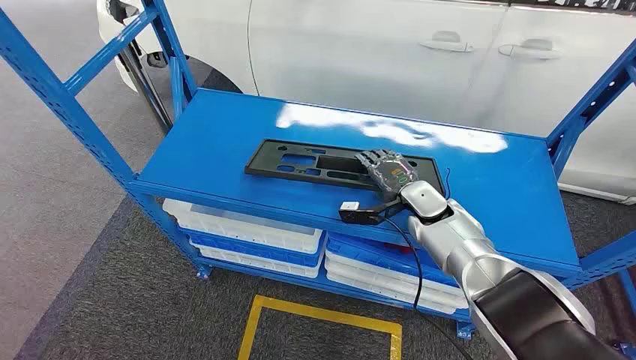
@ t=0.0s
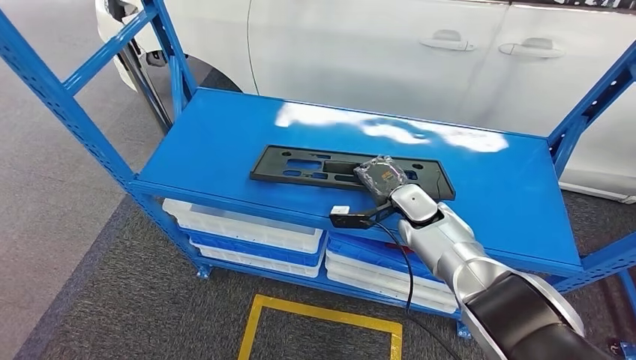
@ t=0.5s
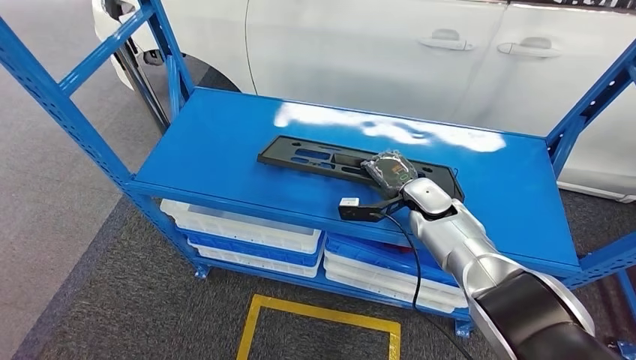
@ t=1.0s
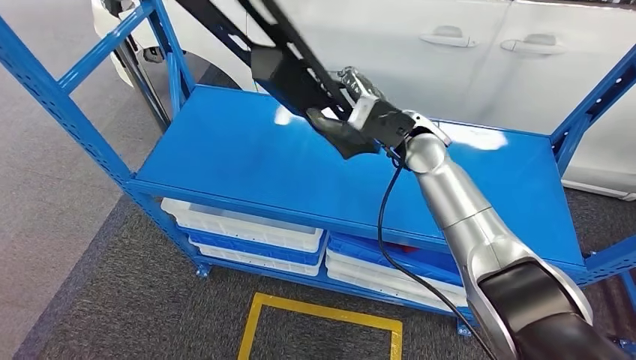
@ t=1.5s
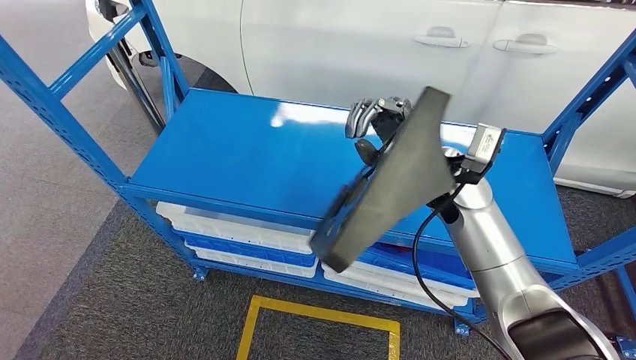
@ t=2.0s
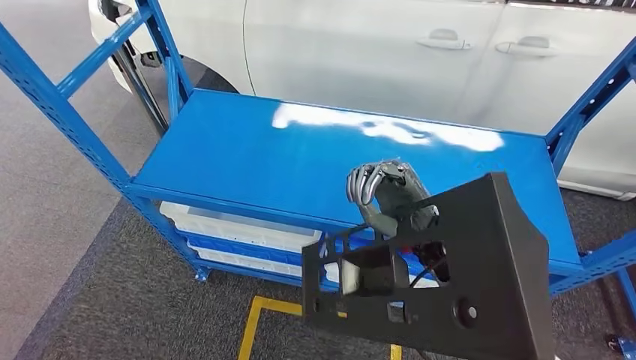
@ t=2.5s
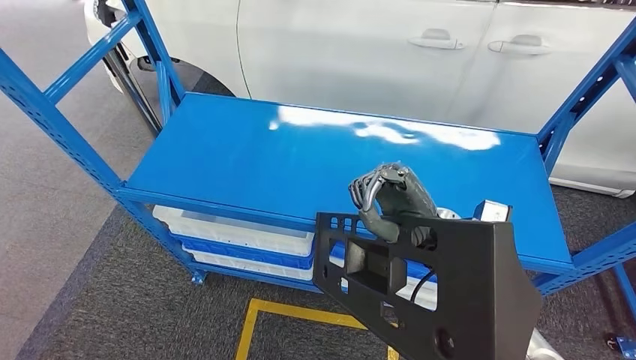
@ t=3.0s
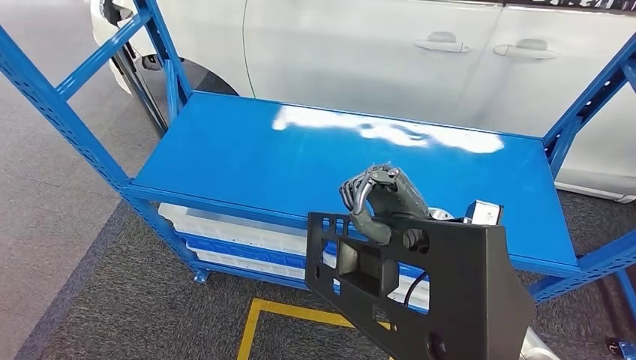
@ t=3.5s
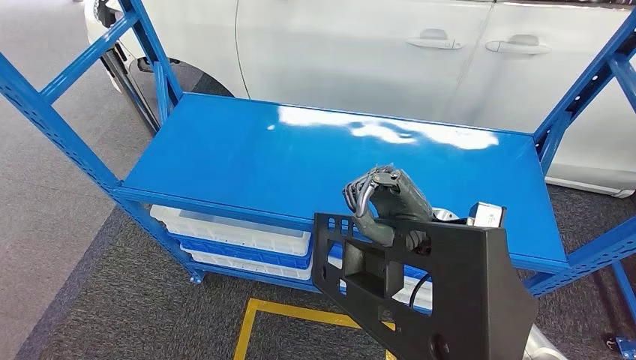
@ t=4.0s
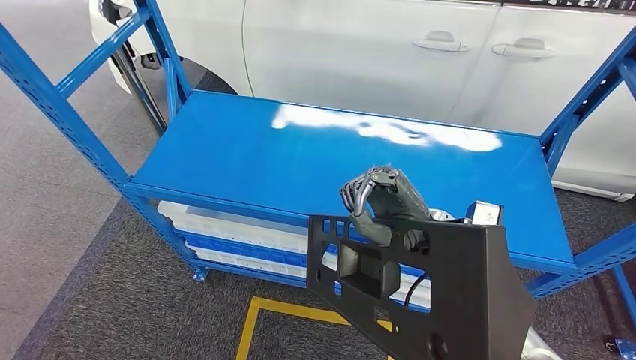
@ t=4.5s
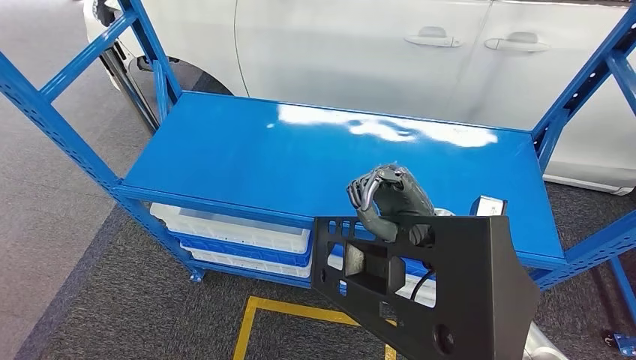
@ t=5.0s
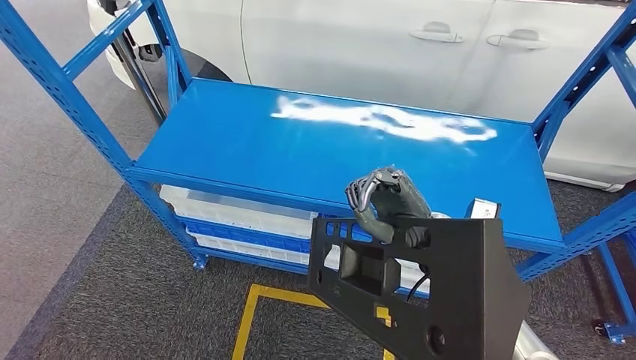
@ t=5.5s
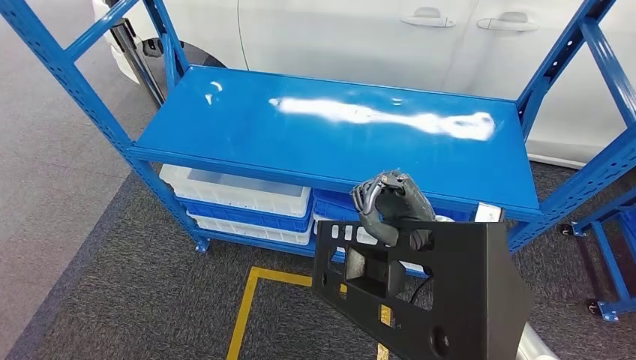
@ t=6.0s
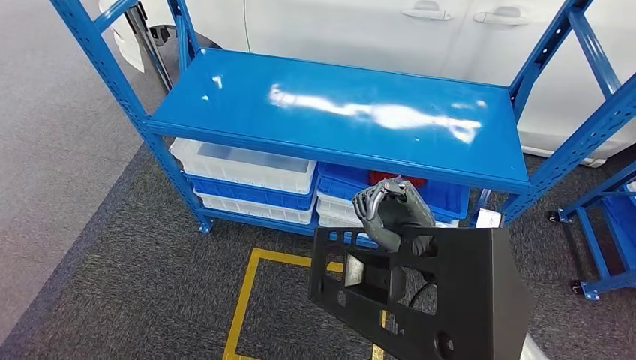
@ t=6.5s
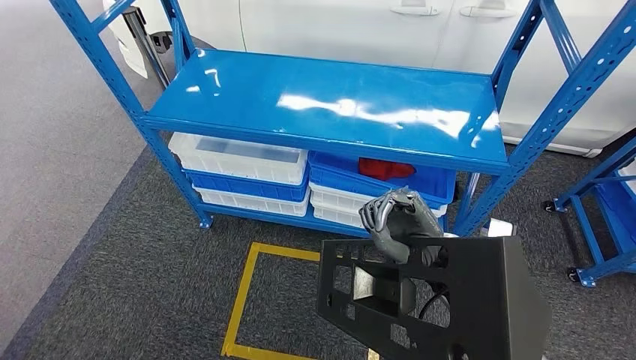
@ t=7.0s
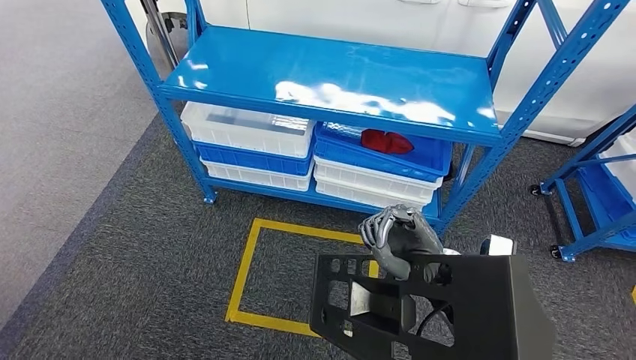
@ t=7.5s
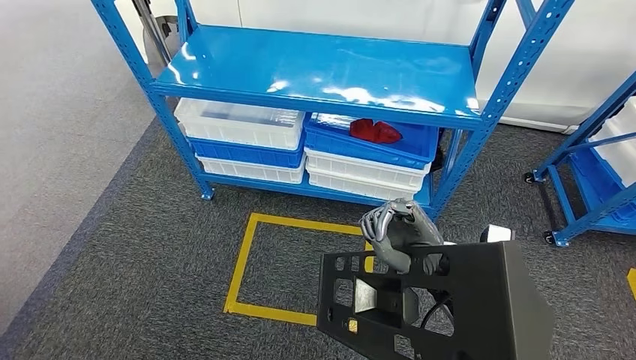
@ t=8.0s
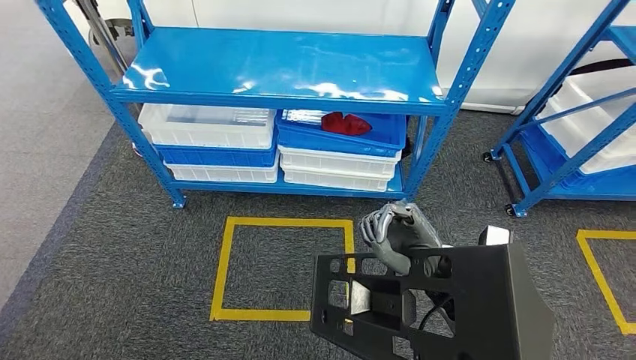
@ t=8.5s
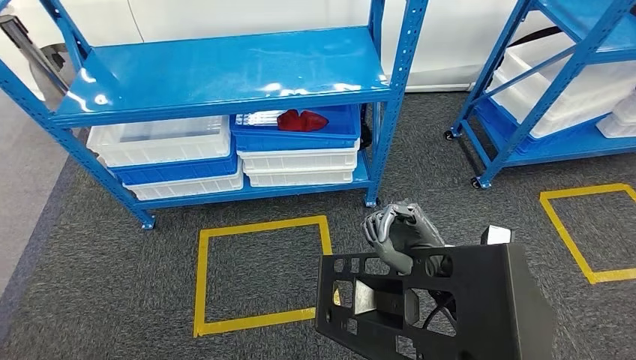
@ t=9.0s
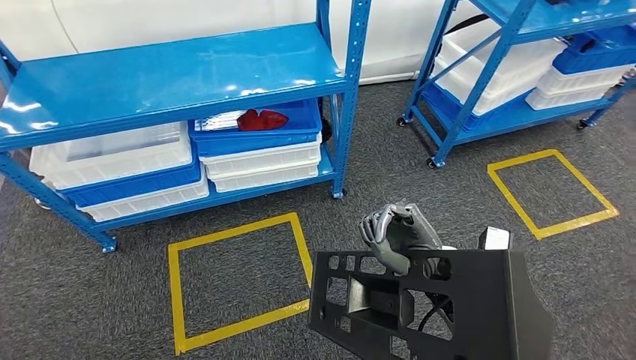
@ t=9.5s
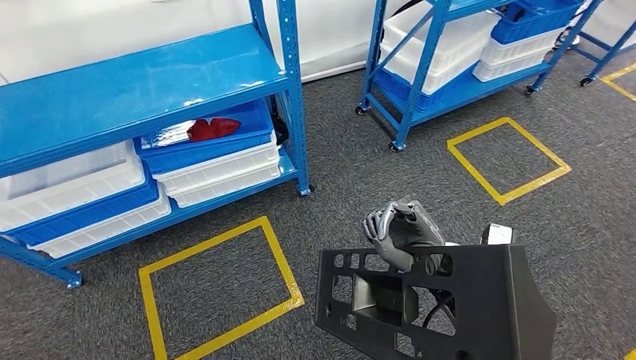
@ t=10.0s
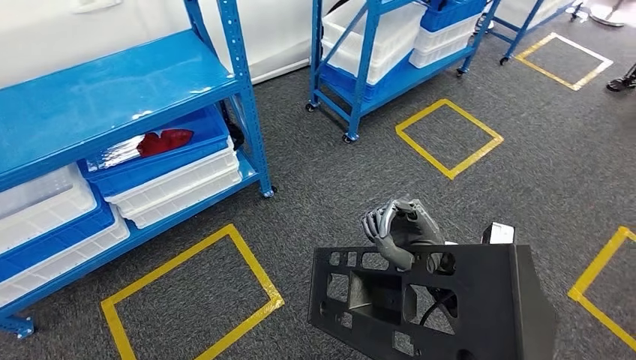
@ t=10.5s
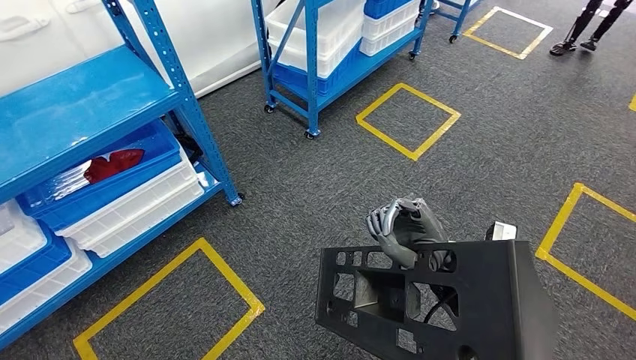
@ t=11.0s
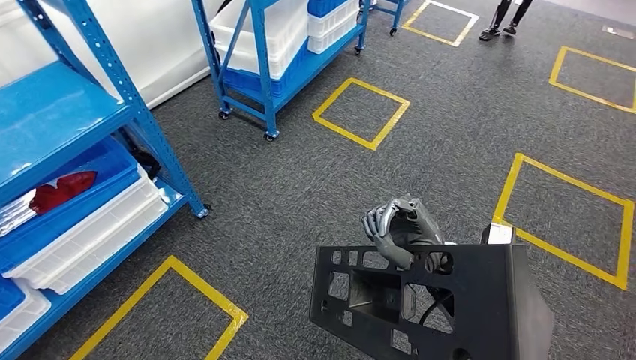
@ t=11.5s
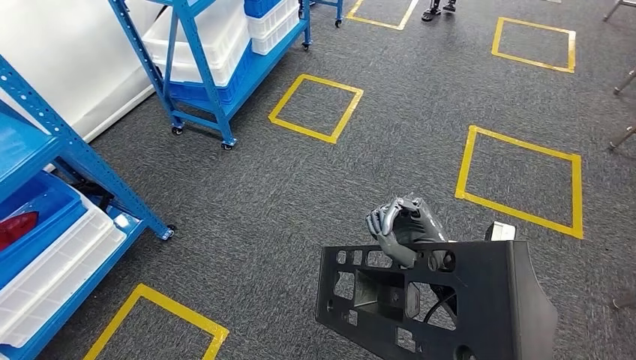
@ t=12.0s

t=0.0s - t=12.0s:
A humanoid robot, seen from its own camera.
Step, t=0.0s - t=4.0s: Pick up the large material from the shelf.

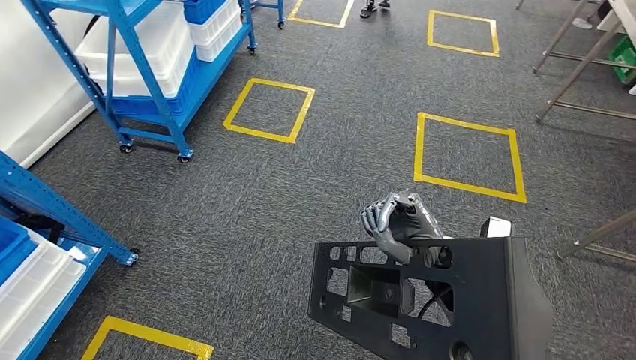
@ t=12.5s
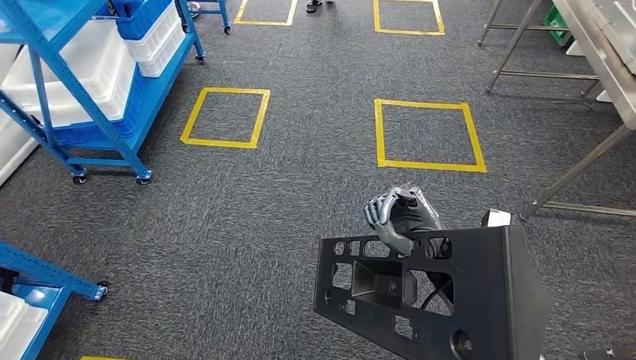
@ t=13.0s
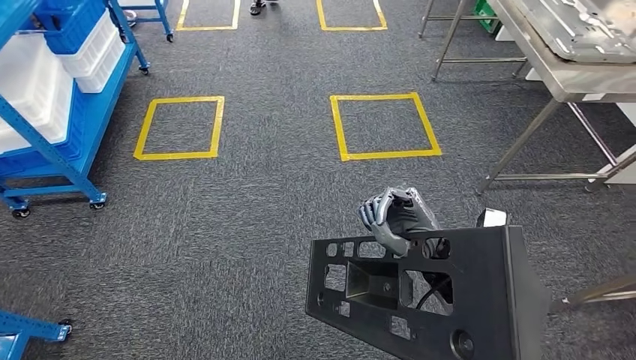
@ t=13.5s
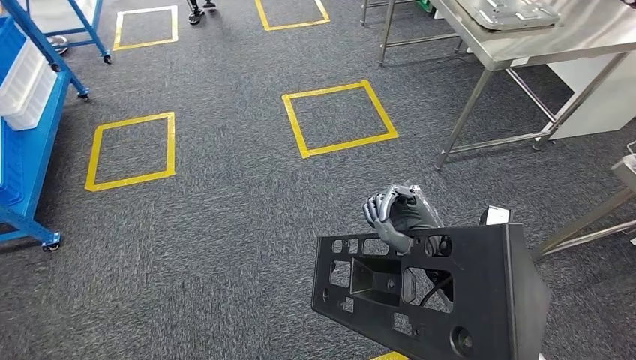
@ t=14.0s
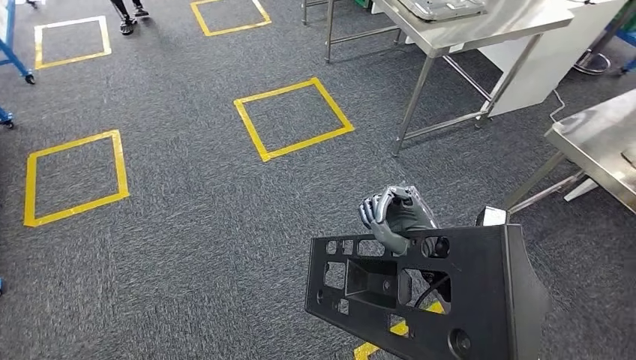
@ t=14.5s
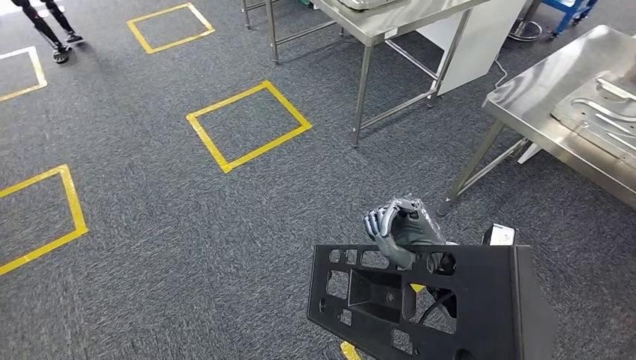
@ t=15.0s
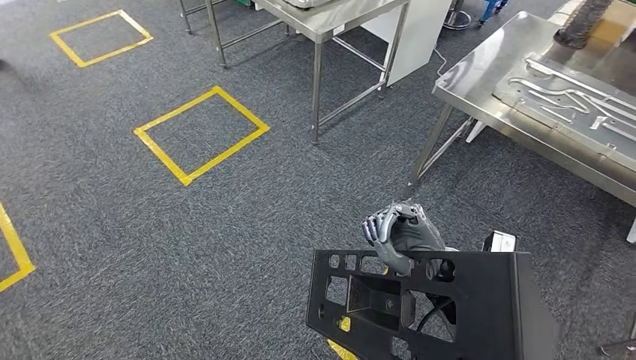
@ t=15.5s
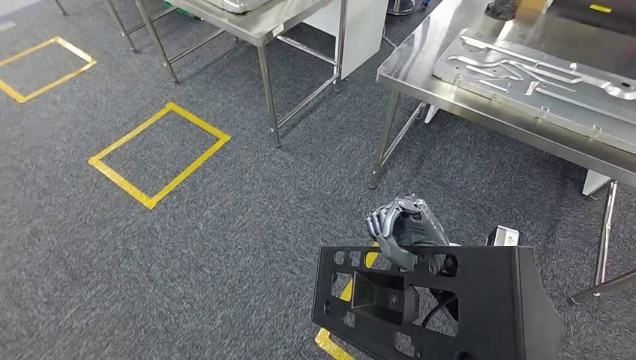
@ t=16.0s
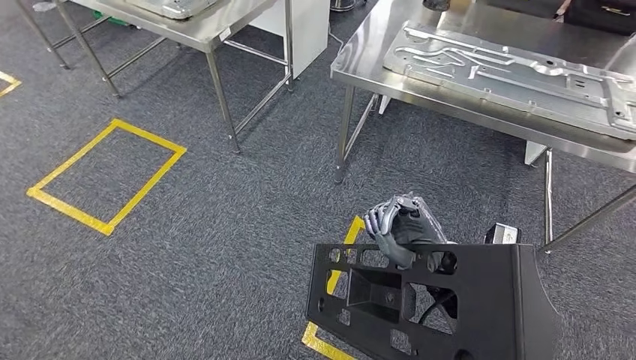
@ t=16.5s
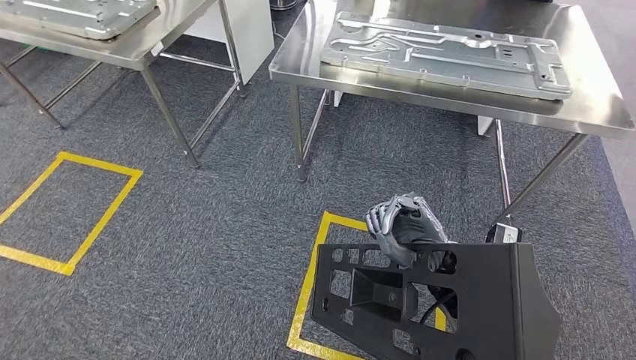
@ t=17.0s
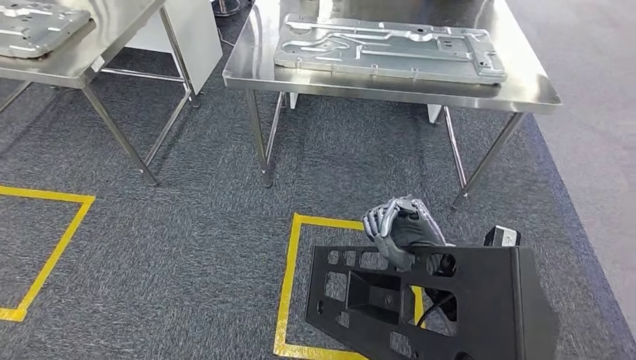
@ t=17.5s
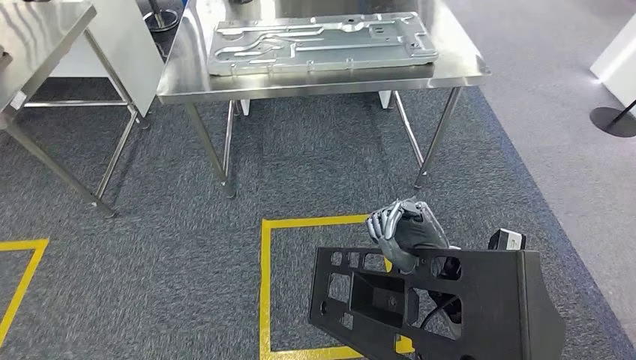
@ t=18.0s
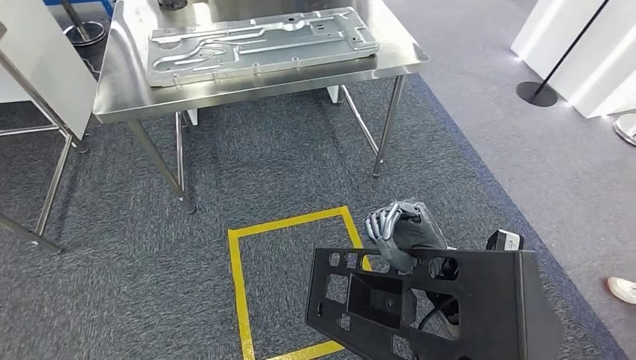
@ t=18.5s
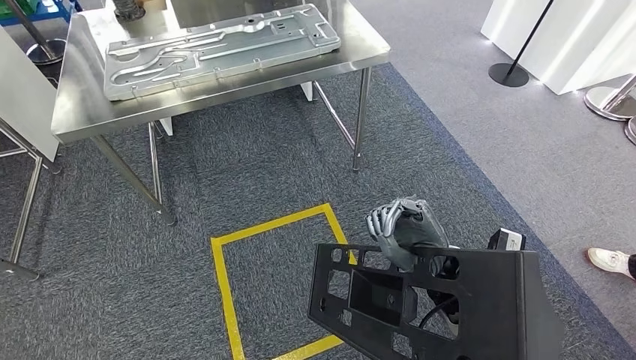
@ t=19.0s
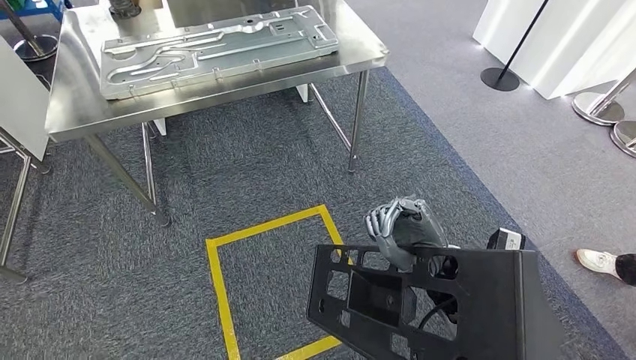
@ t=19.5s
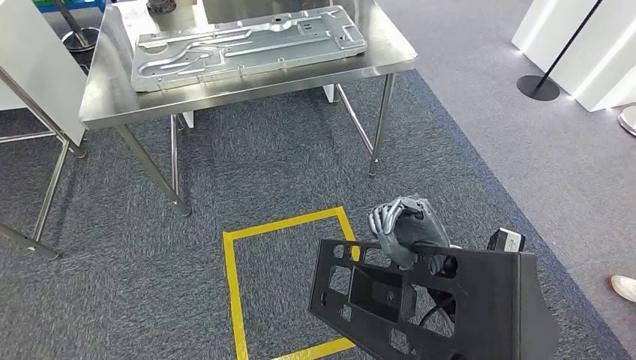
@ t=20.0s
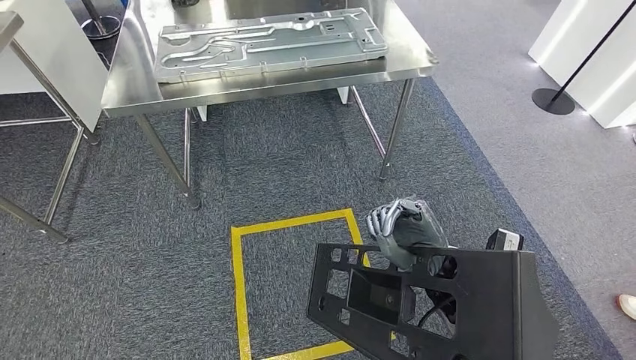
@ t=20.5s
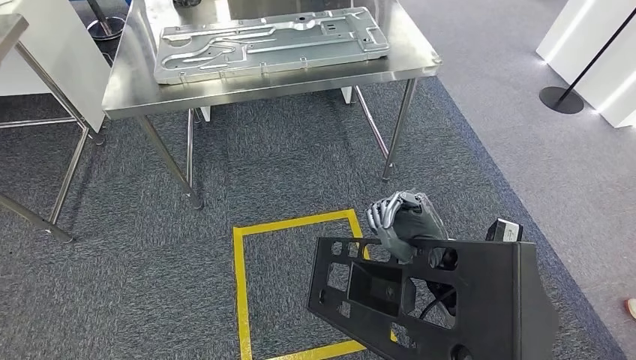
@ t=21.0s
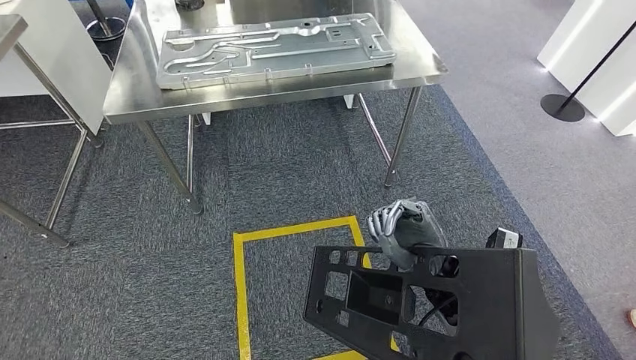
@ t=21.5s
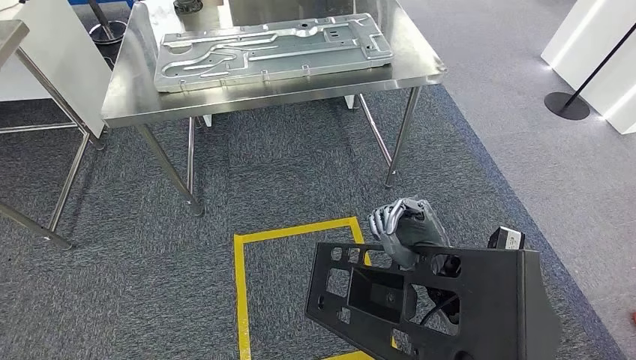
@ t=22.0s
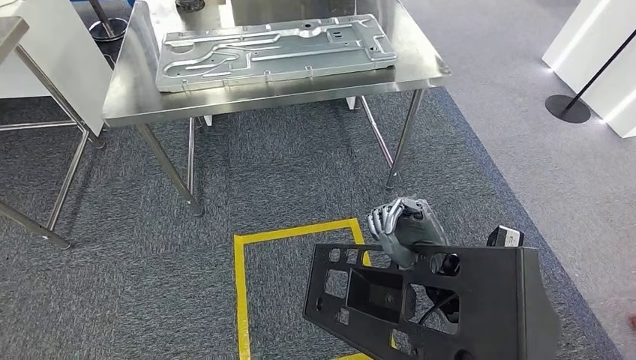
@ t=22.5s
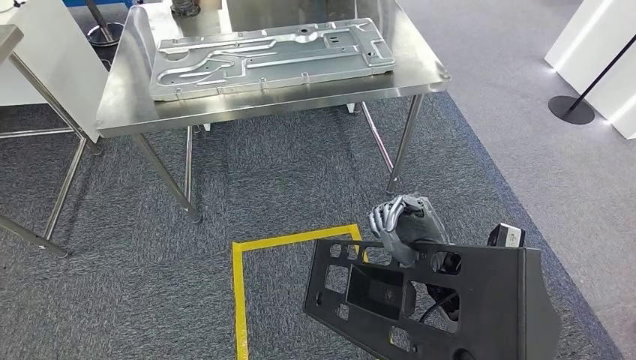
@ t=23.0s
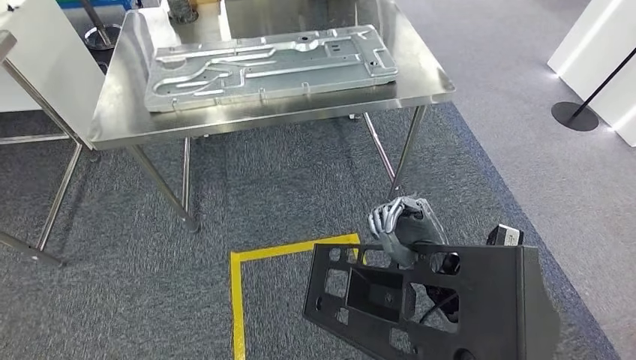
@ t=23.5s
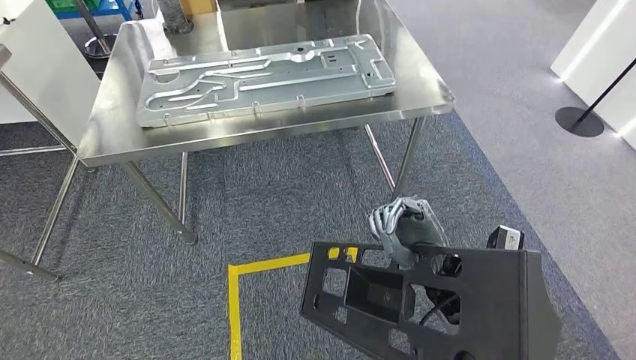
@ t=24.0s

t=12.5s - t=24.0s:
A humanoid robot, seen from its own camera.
t=18.5s - t=20.0s: Both hands stay put.
